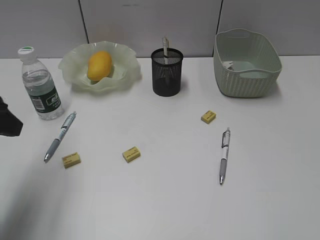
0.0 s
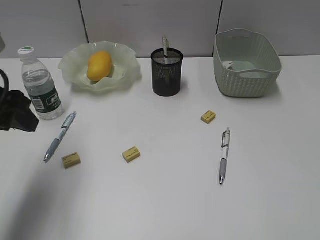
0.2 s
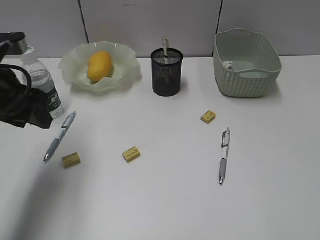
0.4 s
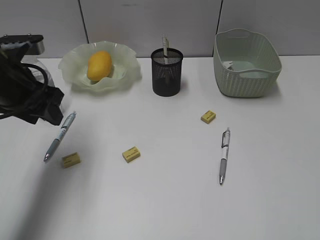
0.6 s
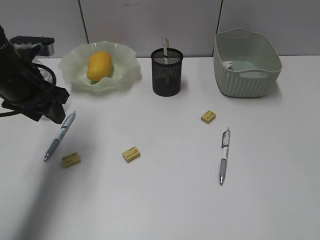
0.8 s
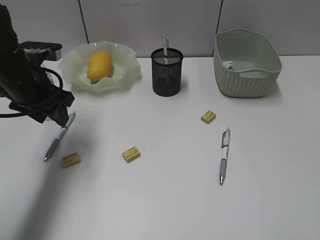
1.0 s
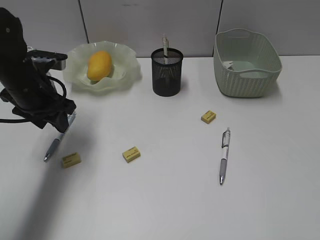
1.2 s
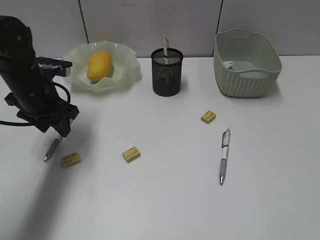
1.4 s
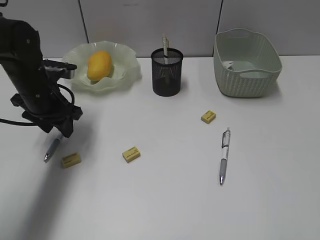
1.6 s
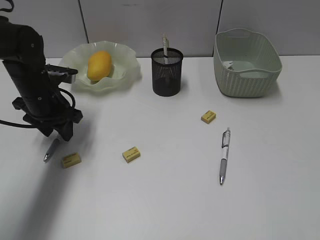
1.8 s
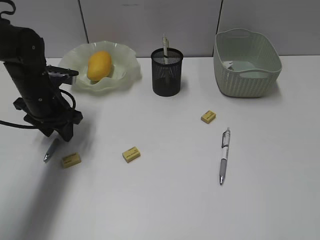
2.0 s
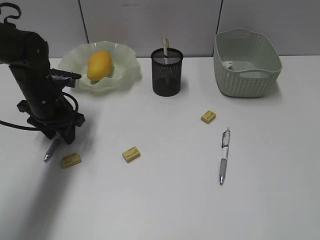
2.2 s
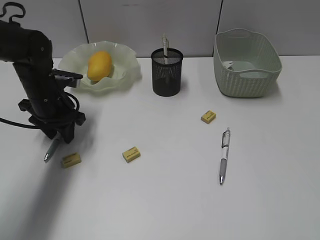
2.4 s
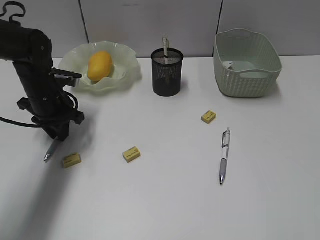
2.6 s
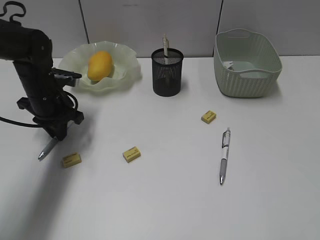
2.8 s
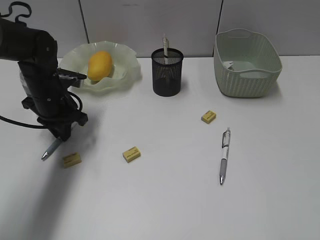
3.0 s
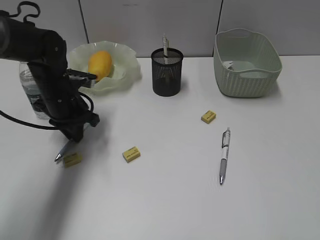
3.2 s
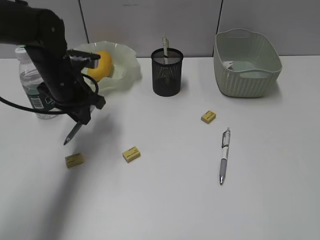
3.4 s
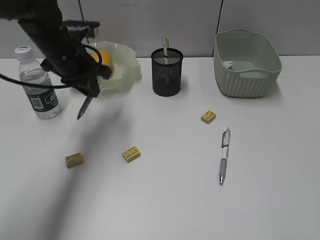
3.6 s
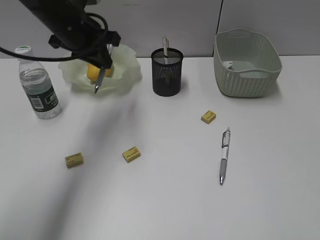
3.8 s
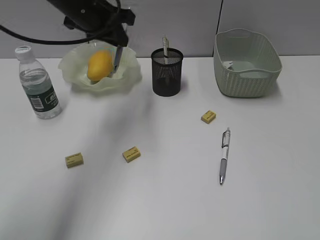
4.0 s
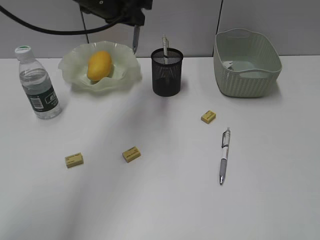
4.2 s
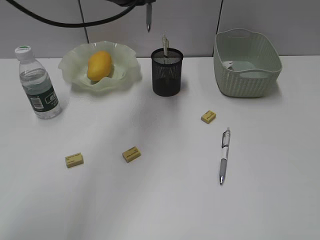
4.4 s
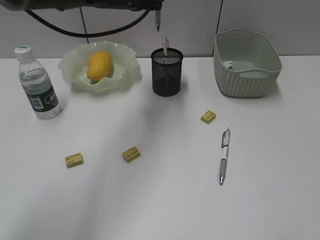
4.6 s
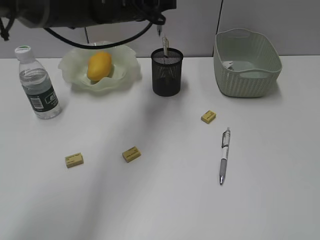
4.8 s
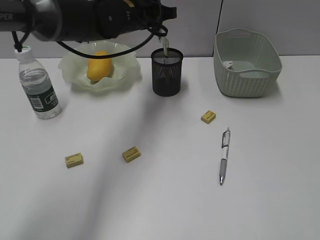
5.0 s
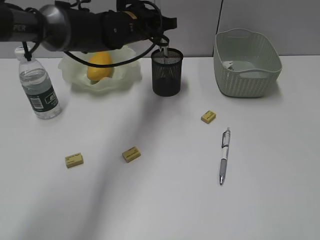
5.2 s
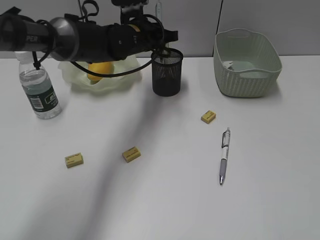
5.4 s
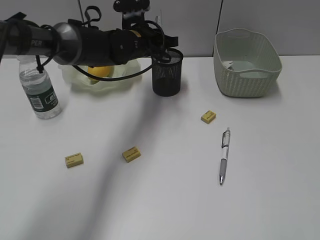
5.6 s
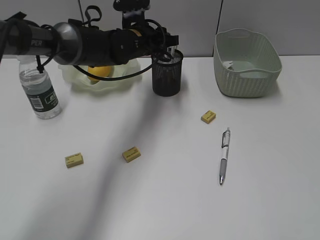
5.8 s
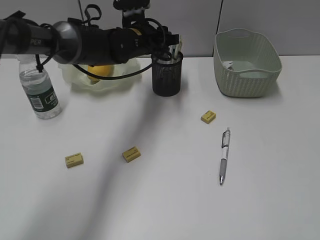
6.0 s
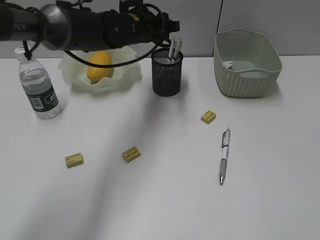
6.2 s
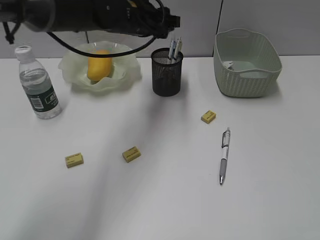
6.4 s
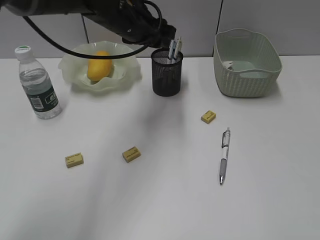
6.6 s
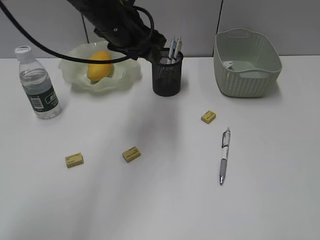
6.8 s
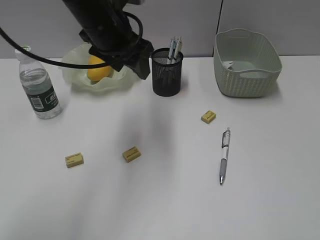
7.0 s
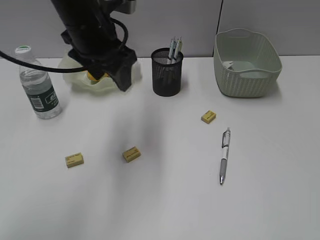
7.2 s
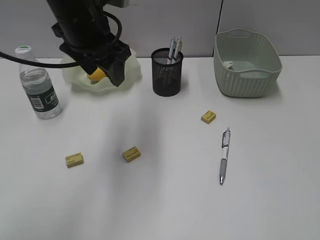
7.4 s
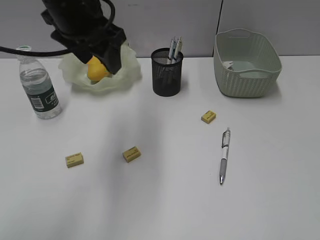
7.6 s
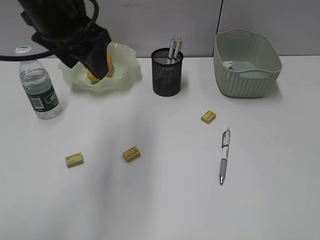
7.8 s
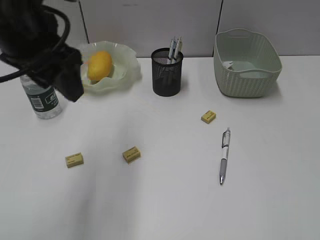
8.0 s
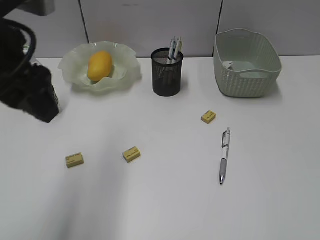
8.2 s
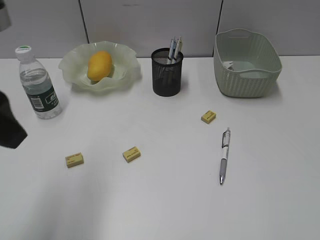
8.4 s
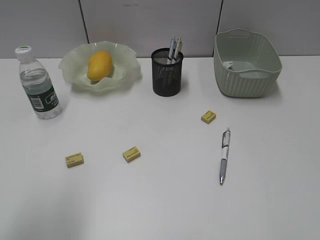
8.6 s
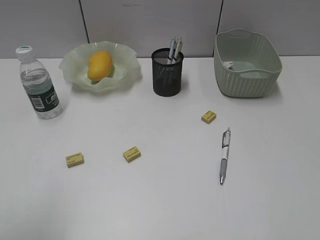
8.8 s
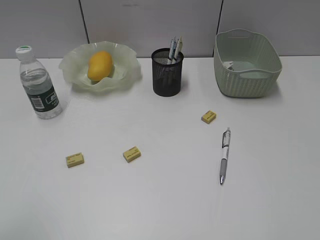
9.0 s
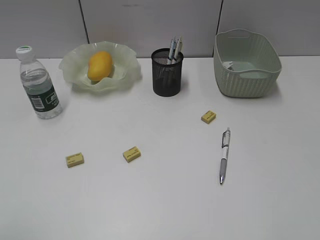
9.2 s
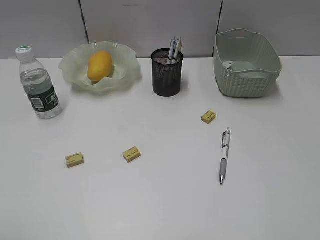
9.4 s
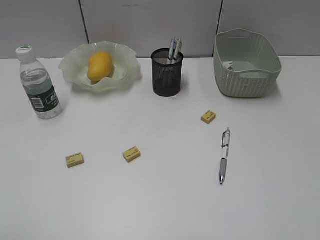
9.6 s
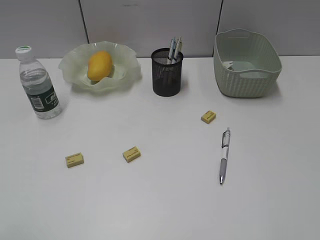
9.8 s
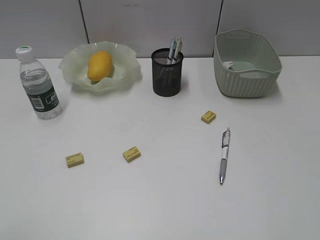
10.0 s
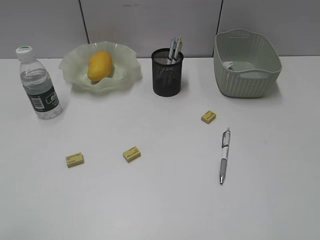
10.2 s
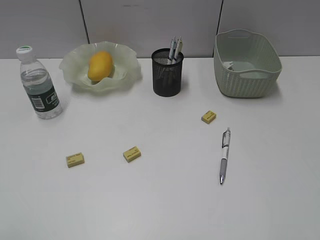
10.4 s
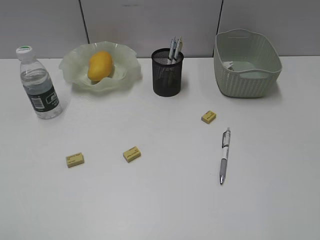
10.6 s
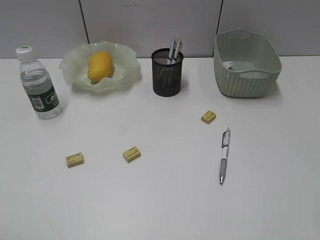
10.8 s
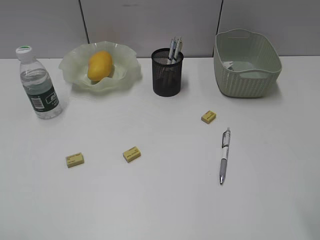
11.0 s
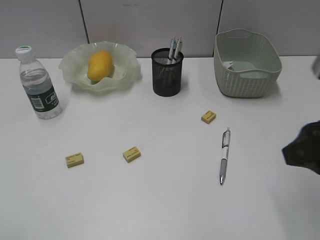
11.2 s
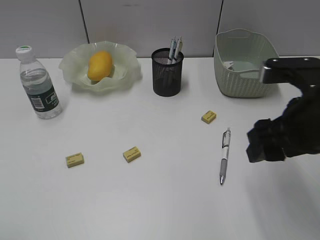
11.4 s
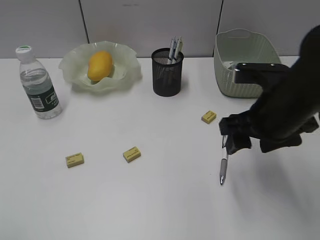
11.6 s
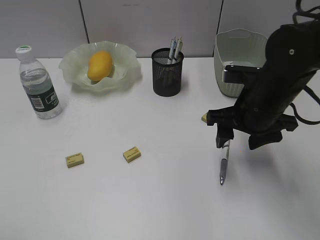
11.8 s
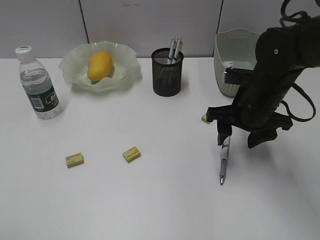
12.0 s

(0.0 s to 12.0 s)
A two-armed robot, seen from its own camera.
Step, 0.0 s - 2.8 s: Grasp the blue pen with left gripper.
Step, 3.0 s - 6.0 s: Place the blue pen in pen holder with left gripper.
0.0 s - 1.6 s: The left gripper moves forward and downward, roughly 20 cm.
1.6 s - 3.0 s: The left gripper closes up.
3.0 s - 4.4 s: The left gripper moves upward and to the right, about 25 cm.
4.4 s - 6.0 s: The left gripper is displaced downward by some 10 cm, and opens its fingers.
6.0 s - 7.6 s: The left gripper shifts about 20 cm upward, backward and to the left.
7.6 s - 9.0 s: The left gripper moves backward and to the left, approximately 35 cm.
10.4 s - 12.0 s: The right gripper heads forward, downward and to the left, covering some 35 cm.

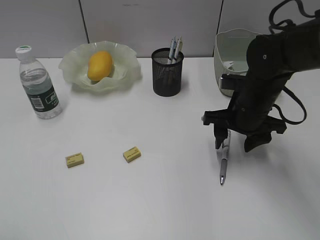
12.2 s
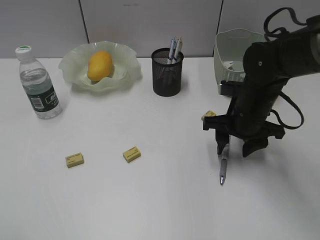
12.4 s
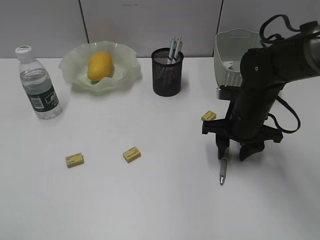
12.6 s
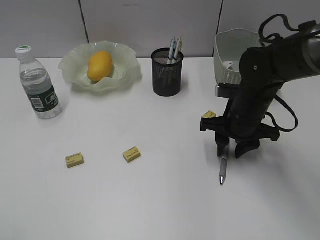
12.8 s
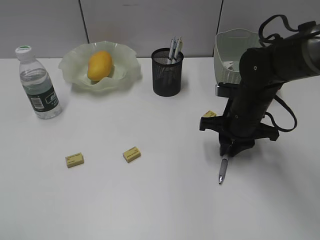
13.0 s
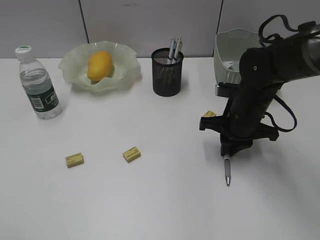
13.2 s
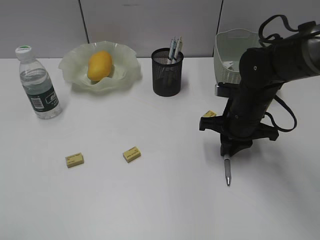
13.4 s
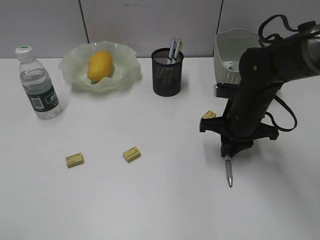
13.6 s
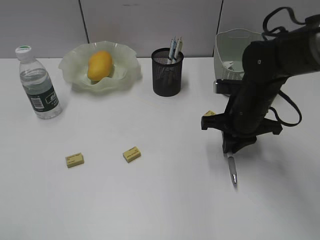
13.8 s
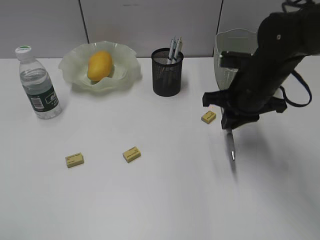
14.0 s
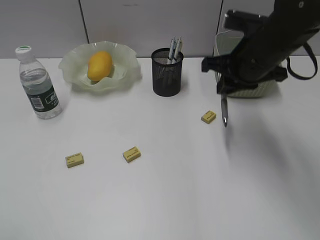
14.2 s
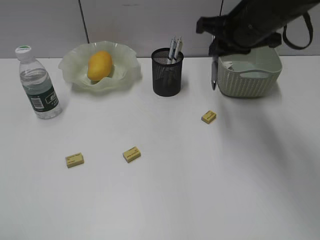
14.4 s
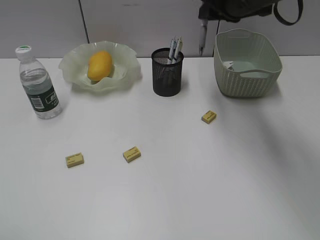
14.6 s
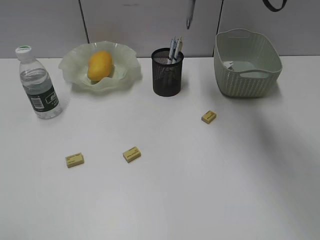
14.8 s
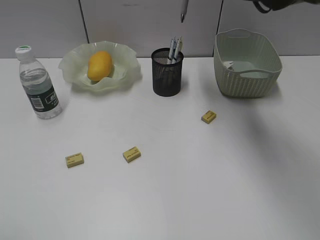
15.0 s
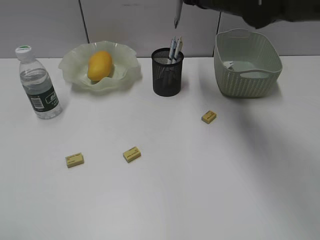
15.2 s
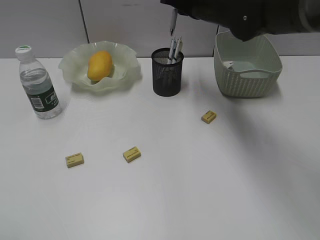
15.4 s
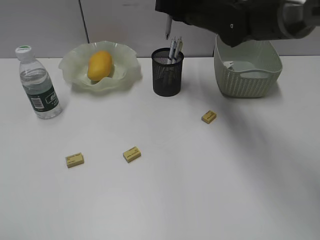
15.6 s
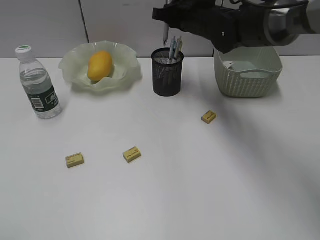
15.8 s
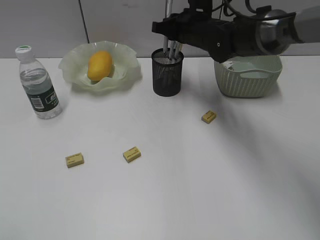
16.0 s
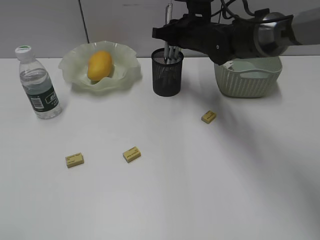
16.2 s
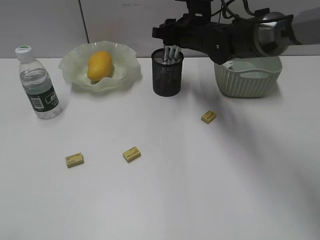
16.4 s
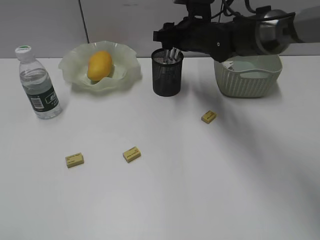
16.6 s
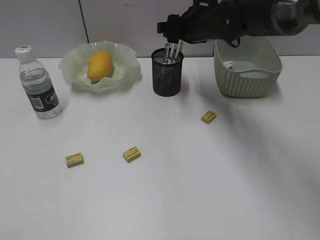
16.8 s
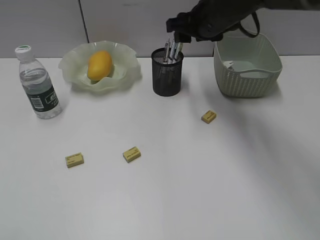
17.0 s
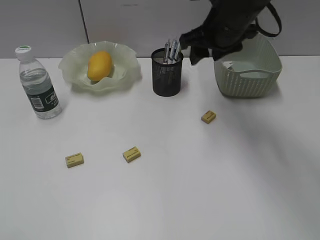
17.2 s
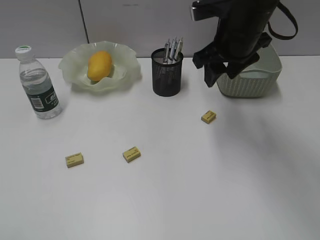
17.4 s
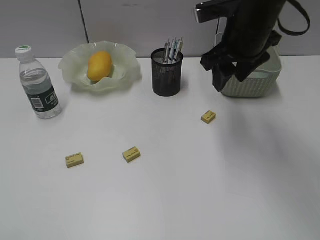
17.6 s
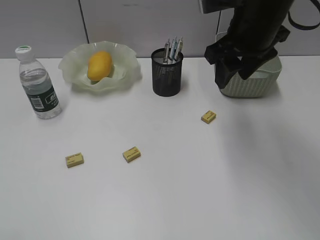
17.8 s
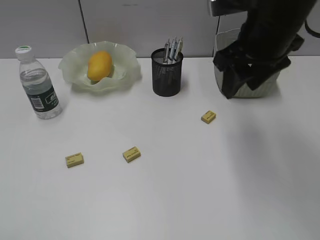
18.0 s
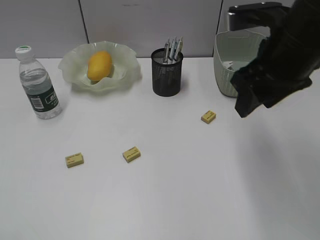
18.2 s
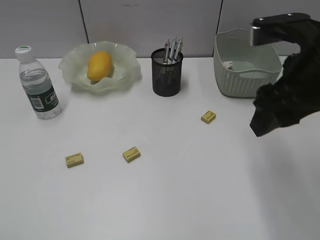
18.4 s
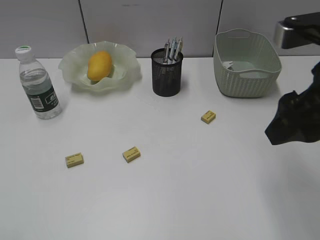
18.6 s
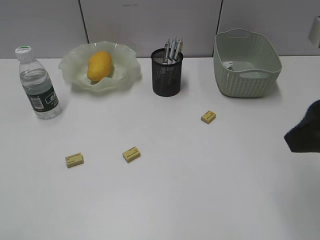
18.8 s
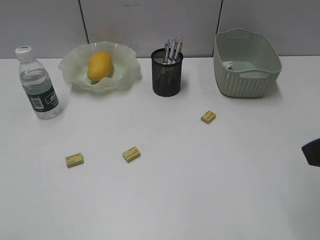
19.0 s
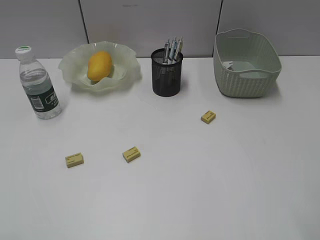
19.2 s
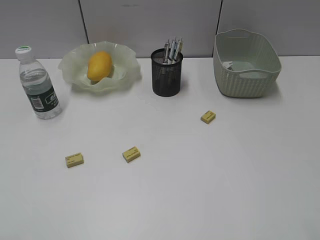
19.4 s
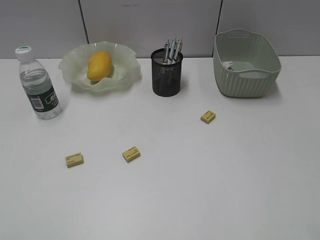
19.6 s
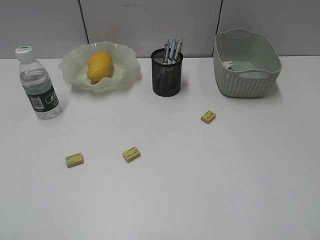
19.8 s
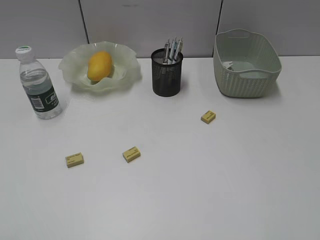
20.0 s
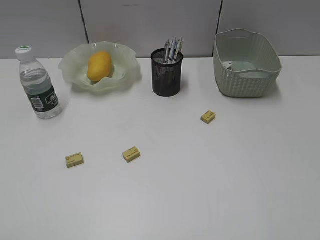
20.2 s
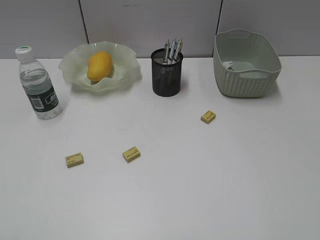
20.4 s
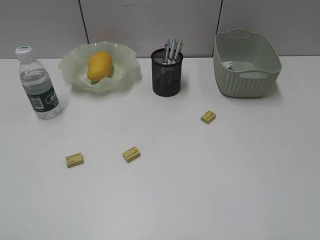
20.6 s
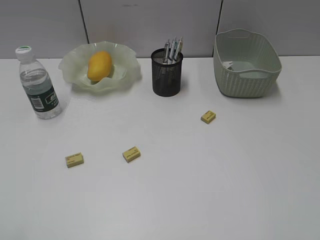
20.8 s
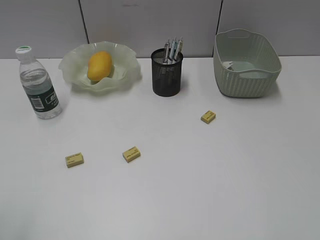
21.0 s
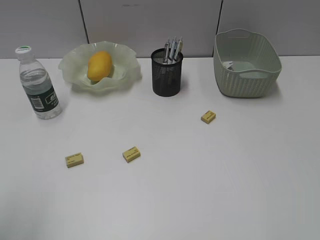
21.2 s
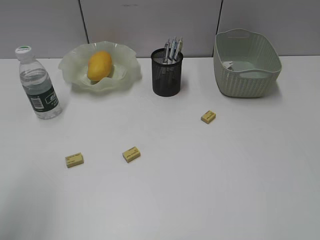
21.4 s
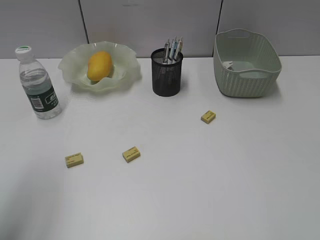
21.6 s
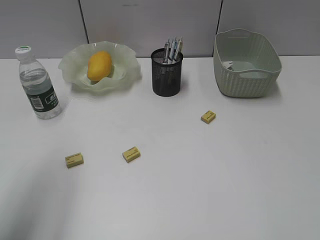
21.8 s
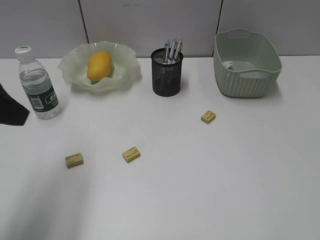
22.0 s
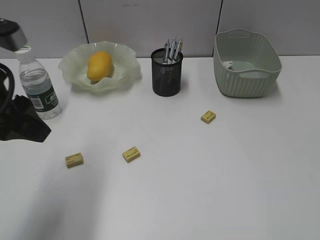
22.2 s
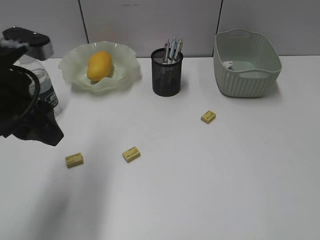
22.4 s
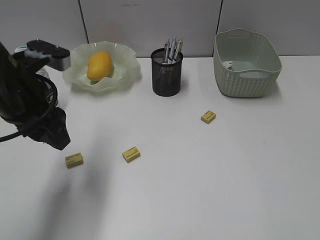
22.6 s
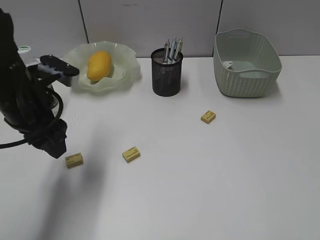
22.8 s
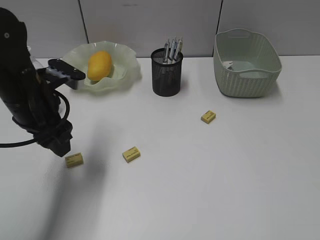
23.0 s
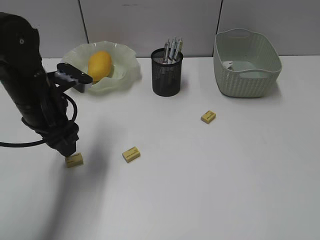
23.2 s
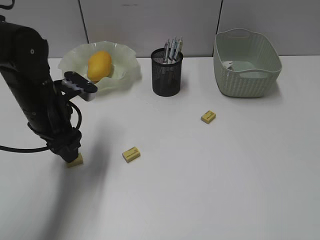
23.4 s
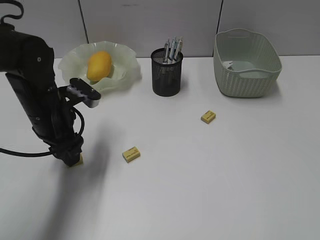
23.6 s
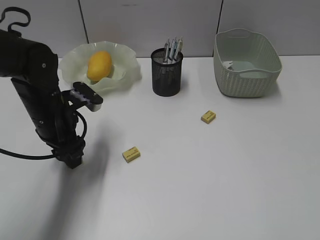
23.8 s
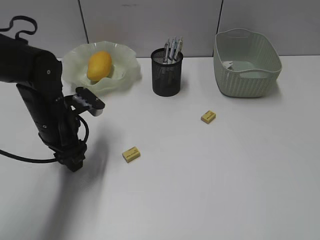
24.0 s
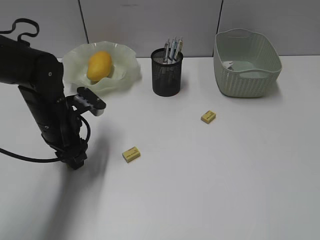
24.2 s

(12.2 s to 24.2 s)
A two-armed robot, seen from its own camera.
Step, 13.6 s - 16.6 s: Place the gray pen in pen holder with right gripper.
12.2 s - 13.8 s: The right gripper closes its fingers.
13.8 s - 15.2 s: The right gripper heads upward and forward, covering about 15 cm.
15.2 s - 16.6 s: The right gripper goes roughly 10 cm downward, and opens.
16.6 s - 18.2 s: The right gripper goes some 25 cm backward, upward and to the right.
18.2 s - 19.8 s: The right gripper goes about 25 cm backward and to the right.
21.2 s - 22.6 s: The left gripper moves forward, to the right and downward, some 25 cm.
22.6 s - 24.2 s: The left gripper travels downward and forward by about 10 cm.
